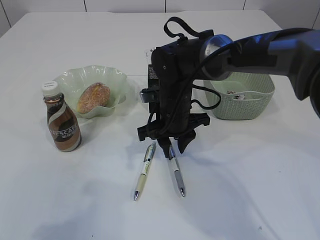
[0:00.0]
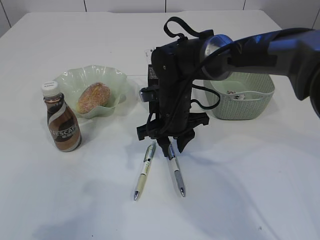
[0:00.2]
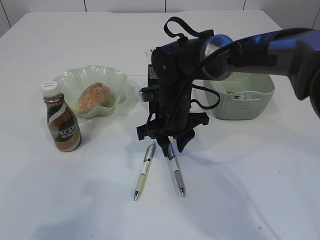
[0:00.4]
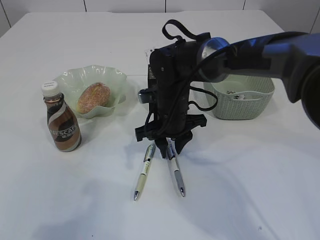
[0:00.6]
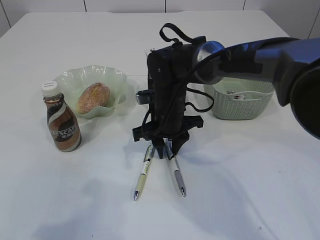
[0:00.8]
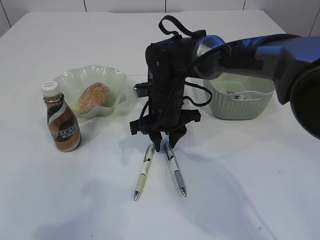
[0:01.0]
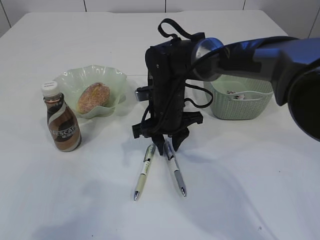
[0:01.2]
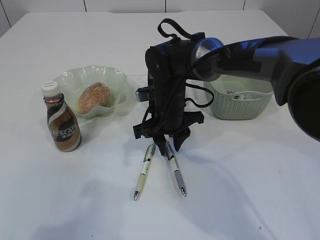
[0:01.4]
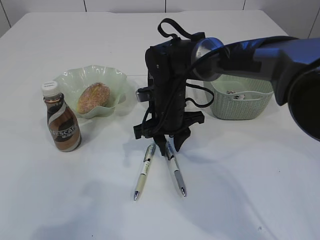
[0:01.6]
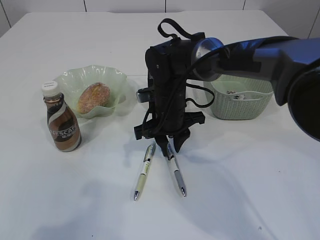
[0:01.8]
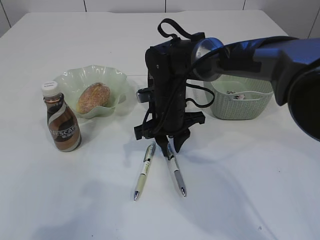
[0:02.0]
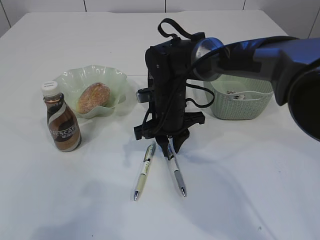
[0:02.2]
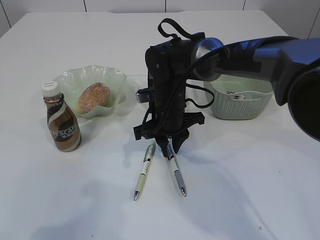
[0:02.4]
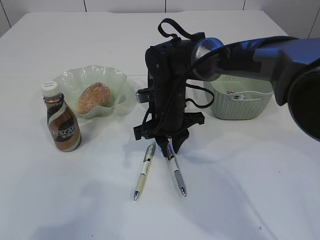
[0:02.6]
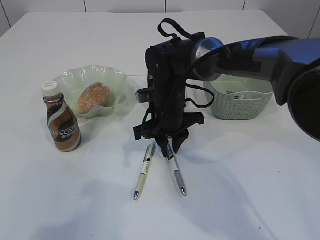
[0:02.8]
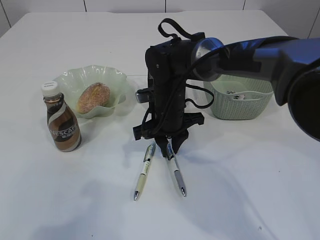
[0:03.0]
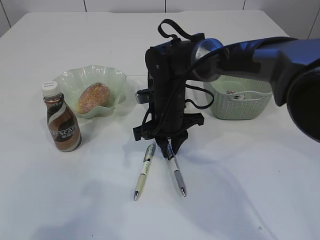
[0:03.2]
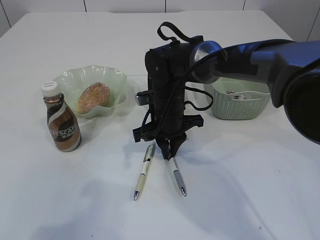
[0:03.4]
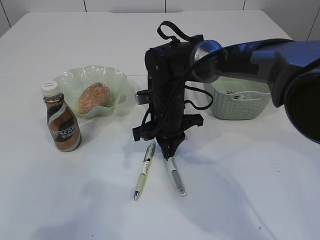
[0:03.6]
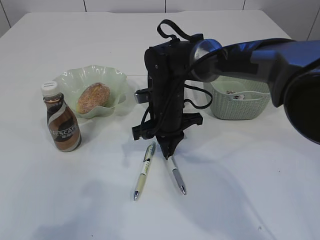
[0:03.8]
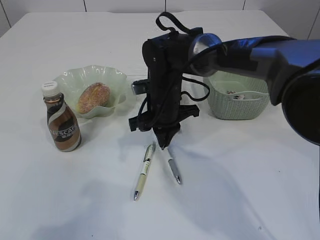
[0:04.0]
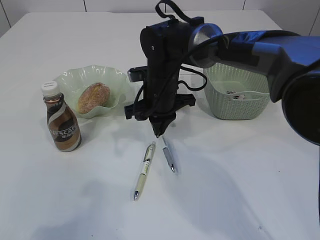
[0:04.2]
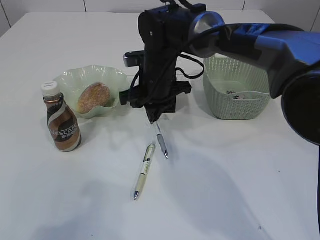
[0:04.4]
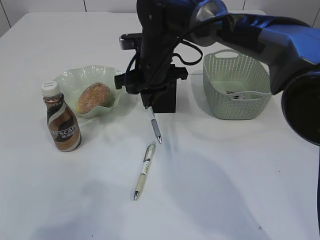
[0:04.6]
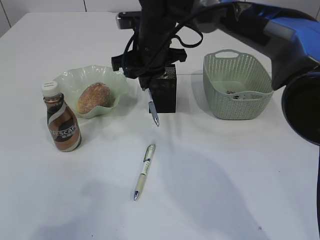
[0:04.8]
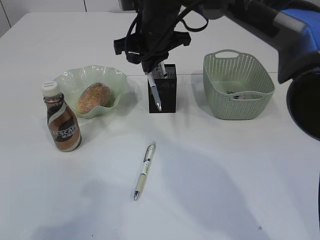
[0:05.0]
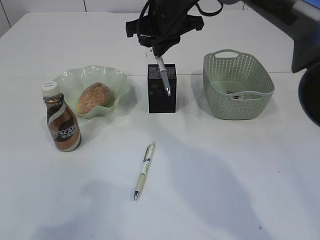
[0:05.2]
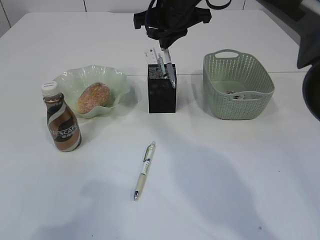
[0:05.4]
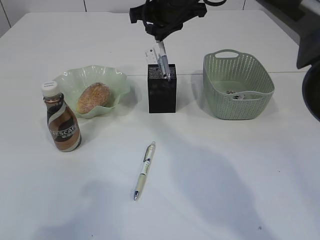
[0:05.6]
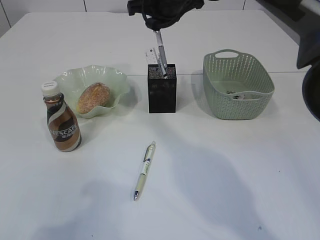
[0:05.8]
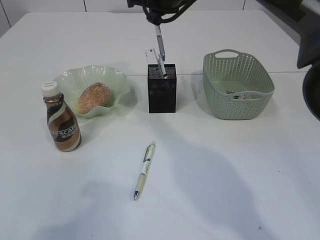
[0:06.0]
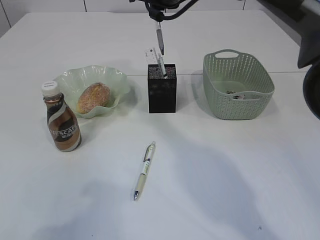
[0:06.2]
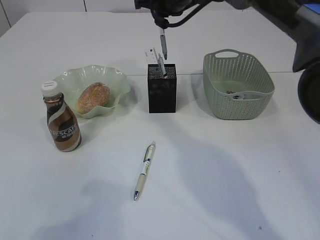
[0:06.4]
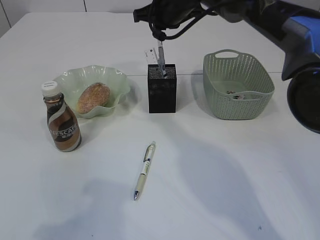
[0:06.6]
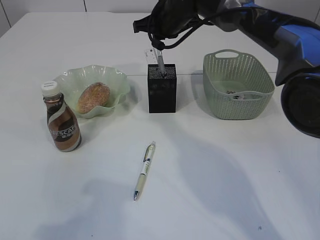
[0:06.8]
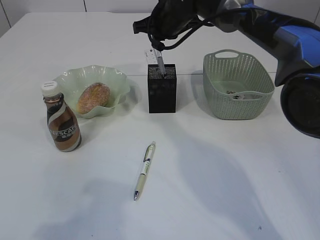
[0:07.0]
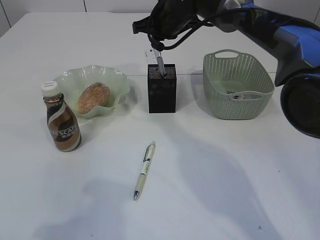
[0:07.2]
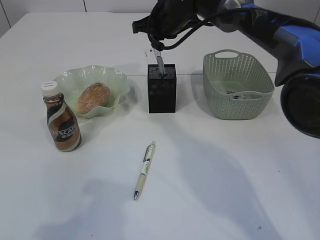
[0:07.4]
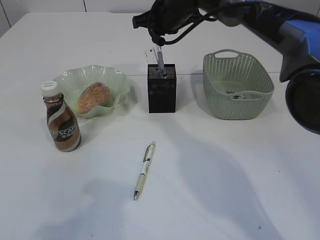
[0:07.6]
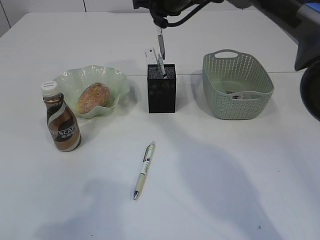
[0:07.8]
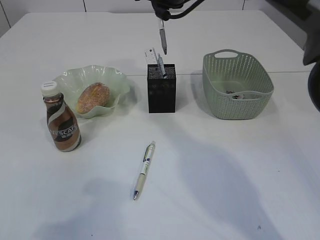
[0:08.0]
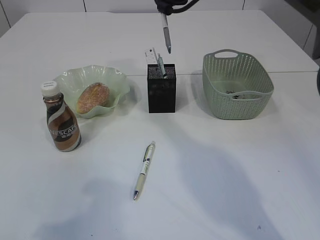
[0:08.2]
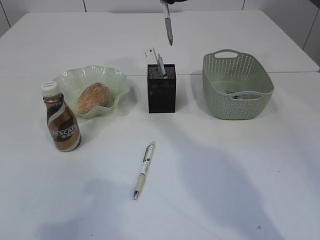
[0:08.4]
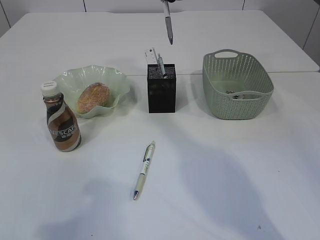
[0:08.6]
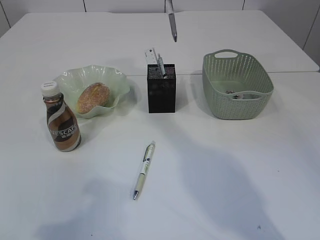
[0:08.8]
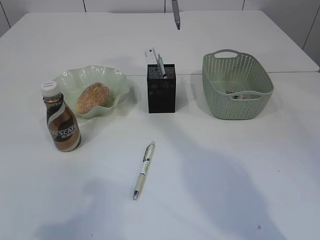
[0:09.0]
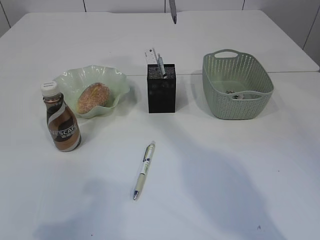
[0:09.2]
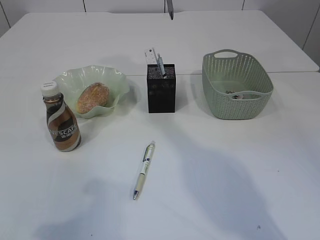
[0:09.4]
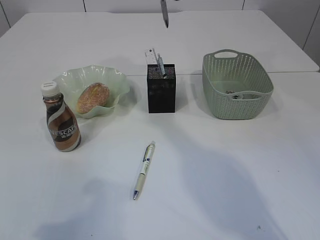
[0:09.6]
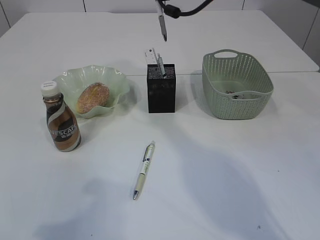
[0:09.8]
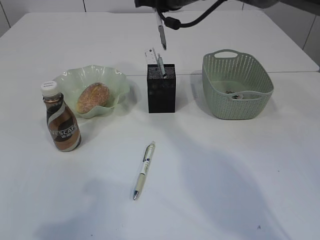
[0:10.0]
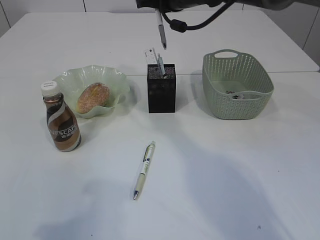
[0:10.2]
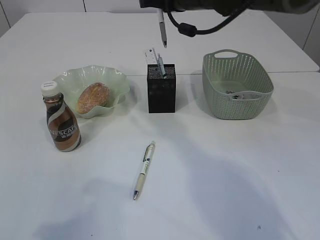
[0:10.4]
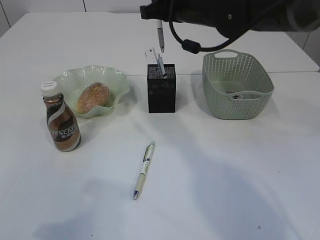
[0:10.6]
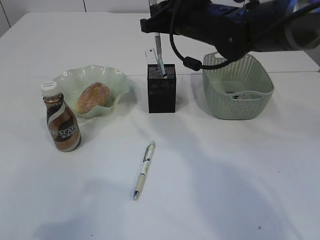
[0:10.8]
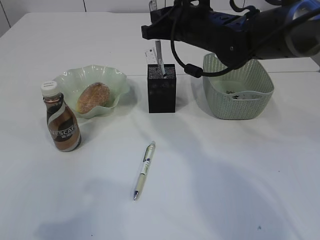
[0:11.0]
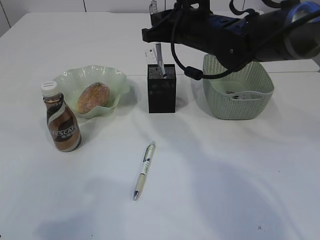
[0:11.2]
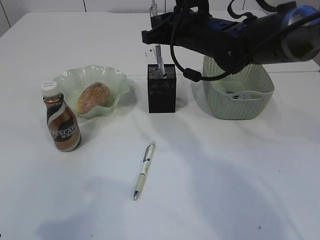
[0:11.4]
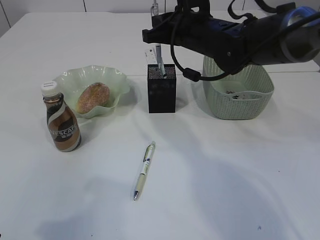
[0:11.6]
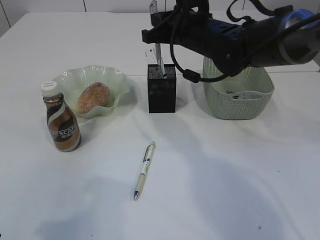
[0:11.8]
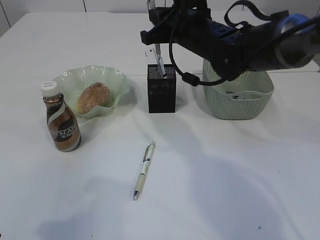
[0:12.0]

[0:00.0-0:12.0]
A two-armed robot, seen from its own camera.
Step, 0:00.0 to 0:04.6: Pick up the pen with right arm.
0:00.0 to 0:01.6: There are only small adjustments of the grippers.
0:01.6 to 0:03.0: Both grippers stay put.
0:03.0 to 0:04.4: The right gripper moves upward, roughly 5 cm.
0:04.4 to 0:06.0: The right gripper heads upward and forward, covering about 15 cm.
0:06.0 to 0:07.6: The right gripper is displaced downward by some 5 cm.
0:07.6 to 0:09.0: The right gripper goes about 15 cm upward and backward.
0:09.0 to 0:10.4: The right gripper is displaced downward by roughly 10 cm.
0:10.4 to 0:12.0: The right gripper is displaced downward by some 5 cm.

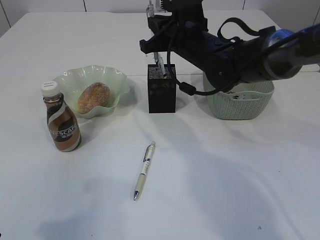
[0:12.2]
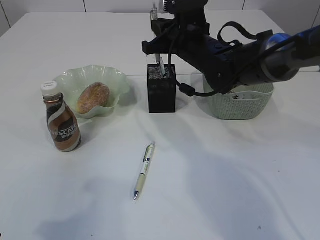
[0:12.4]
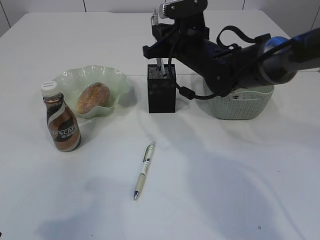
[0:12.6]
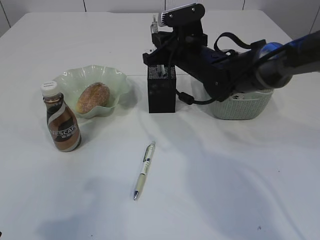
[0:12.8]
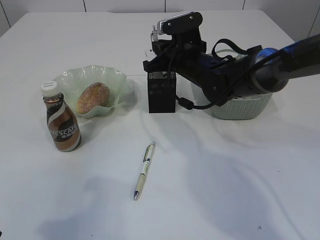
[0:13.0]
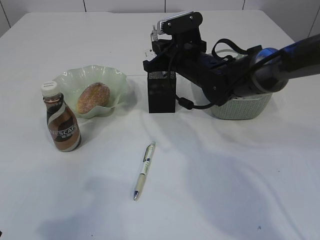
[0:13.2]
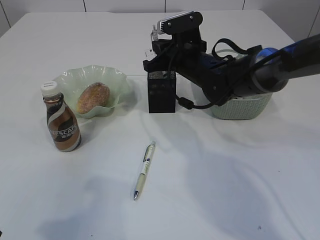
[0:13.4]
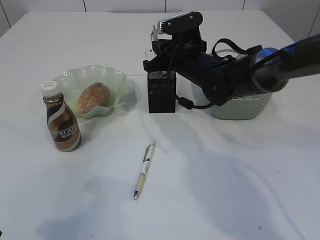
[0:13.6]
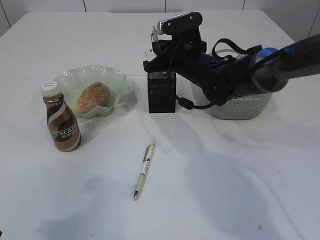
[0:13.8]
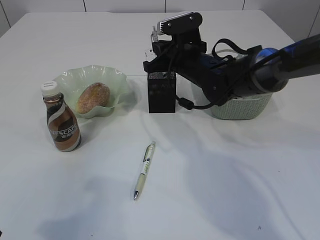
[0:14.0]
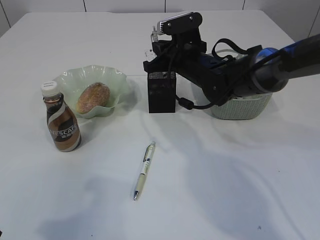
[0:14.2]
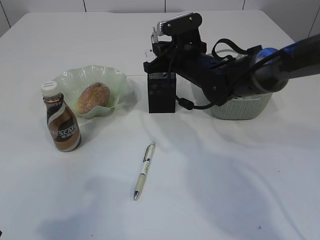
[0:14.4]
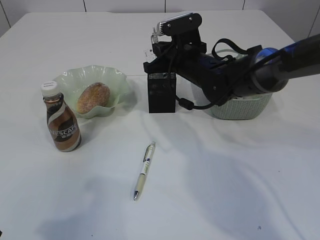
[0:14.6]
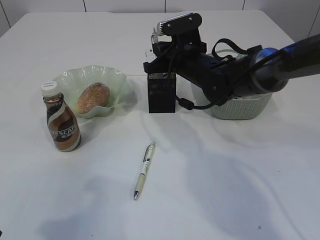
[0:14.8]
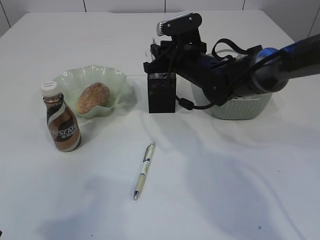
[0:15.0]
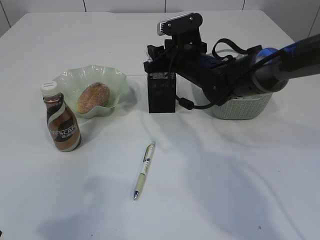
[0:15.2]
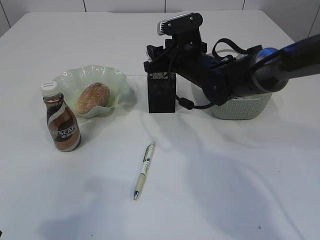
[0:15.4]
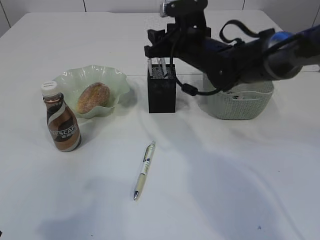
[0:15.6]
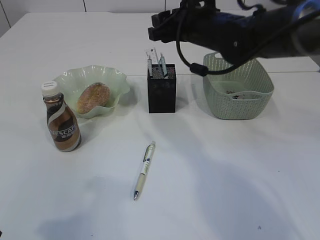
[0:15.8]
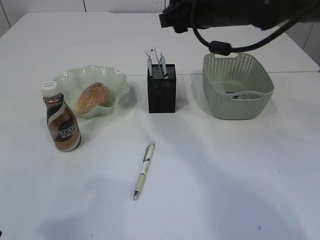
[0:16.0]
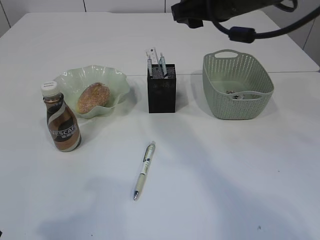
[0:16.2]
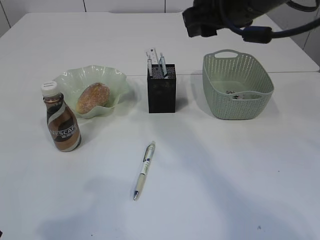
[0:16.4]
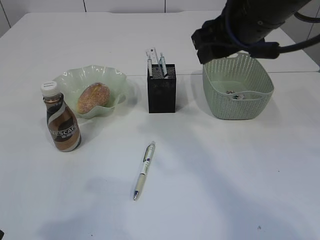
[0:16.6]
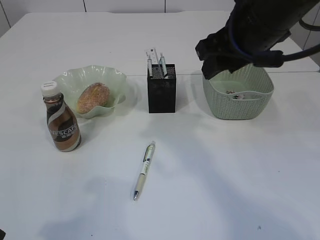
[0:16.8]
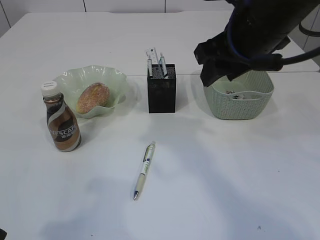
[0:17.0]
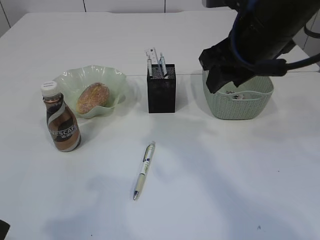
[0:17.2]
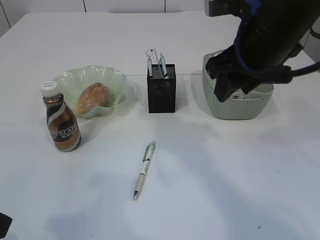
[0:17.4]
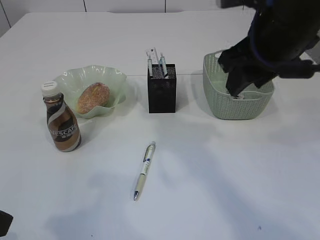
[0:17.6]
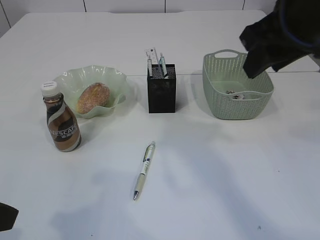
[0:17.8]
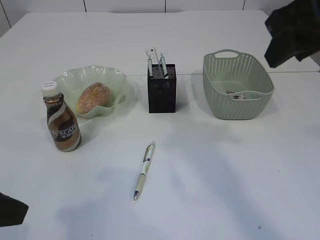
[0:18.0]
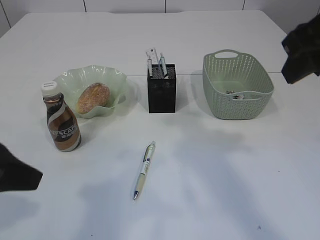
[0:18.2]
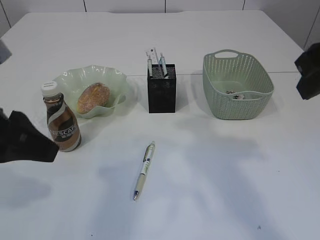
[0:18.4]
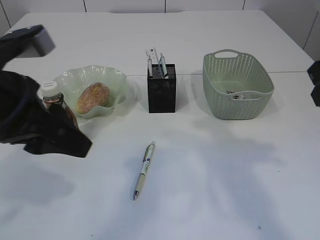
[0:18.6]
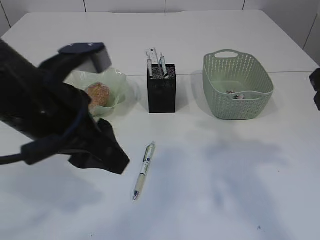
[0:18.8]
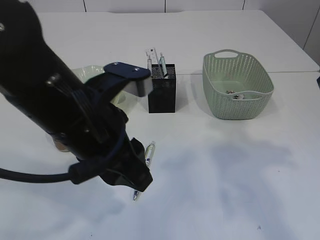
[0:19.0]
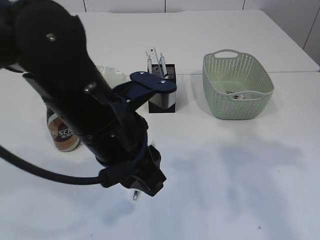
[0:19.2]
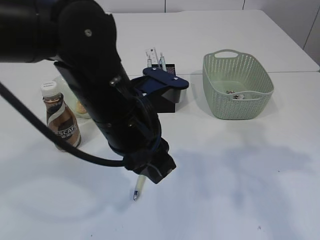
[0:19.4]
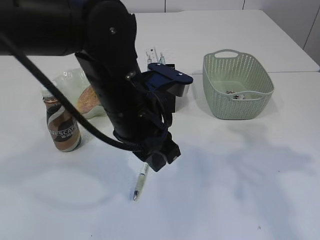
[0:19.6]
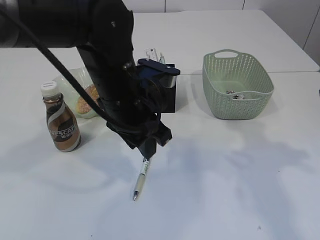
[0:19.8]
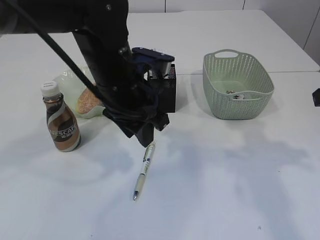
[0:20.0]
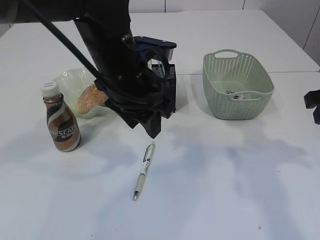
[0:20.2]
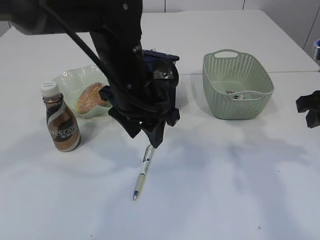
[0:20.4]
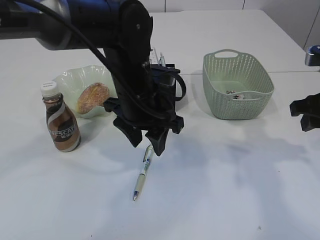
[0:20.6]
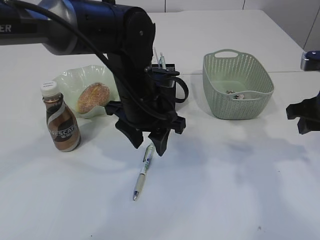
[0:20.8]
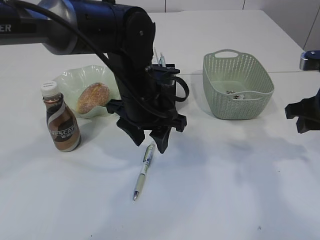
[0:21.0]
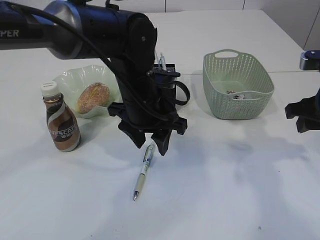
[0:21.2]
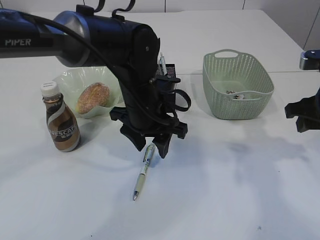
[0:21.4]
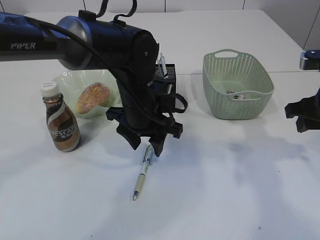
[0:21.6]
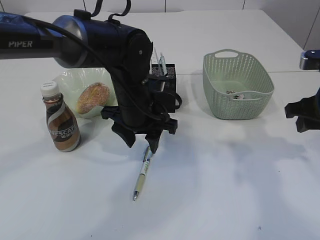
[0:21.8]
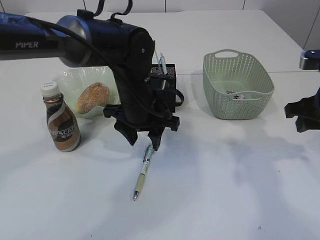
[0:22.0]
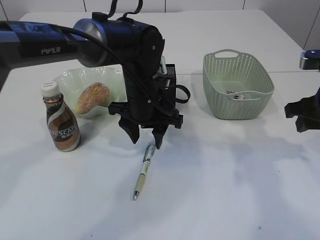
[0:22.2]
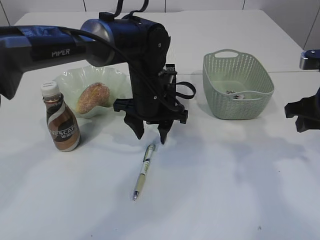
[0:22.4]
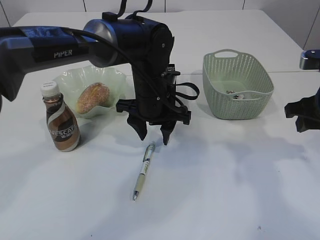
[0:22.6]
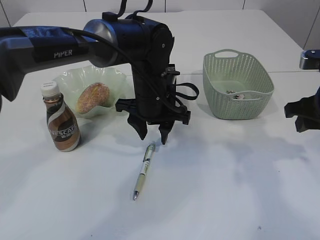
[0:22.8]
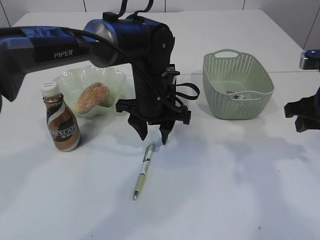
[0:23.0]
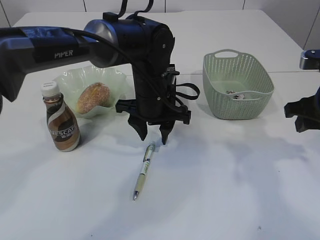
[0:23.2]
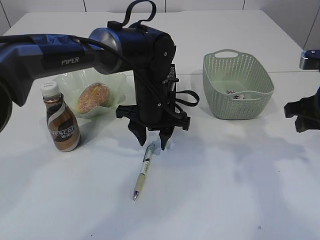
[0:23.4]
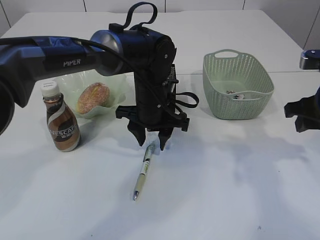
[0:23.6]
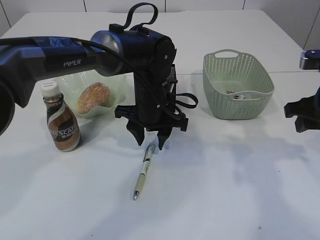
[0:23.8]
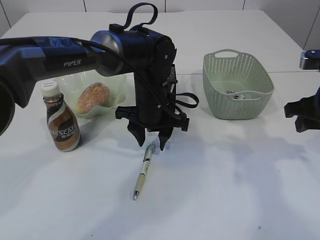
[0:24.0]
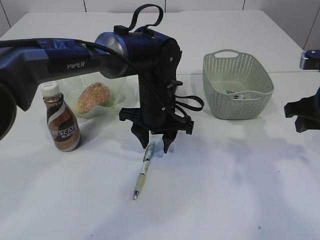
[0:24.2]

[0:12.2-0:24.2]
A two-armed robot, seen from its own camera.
Step, 0:12.2 to 0:16.6: Place the pen into the pen holder.
0:12.2 to 0:13.8: The grippers stay close to where they were, moving slightly.
0:13.8 to 0:15.2: The right gripper opens up.
0:15.2 to 0:16.6: The right gripper shifts about 20 cm upward and backward.
0:16.6 to 0:18.2: The left gripper changes place by some 5 cm. Meanwhile the right gripper moves backward and to the right, some 10 cm.
0:18.2 to 0:19.8: The left gripper is displaced to the right and forward by roughly 20 cm, while the right gripper travels downward and to the right by approximately 10 cm.
0:19.8 to 0:21.2: The left gripper moves some 5 cm. Meanwhile the right gripper travels downward by some 5 cm.
0:21.2 to 0:22.6: The left gripper moves some 5 cm.
0:22.6 to 0:24.2: The grippers move only a little.
